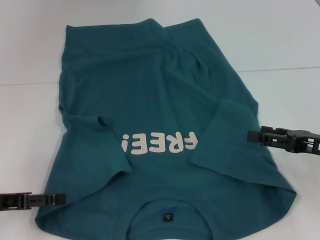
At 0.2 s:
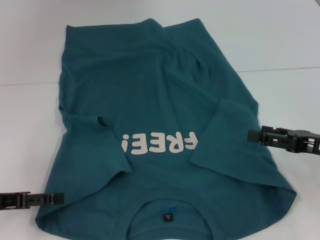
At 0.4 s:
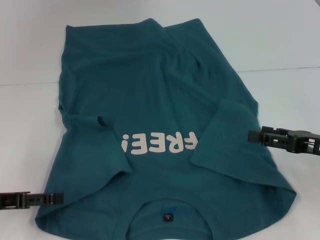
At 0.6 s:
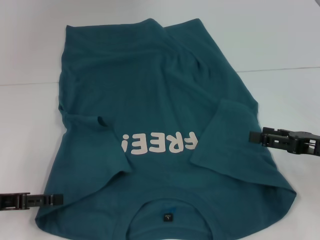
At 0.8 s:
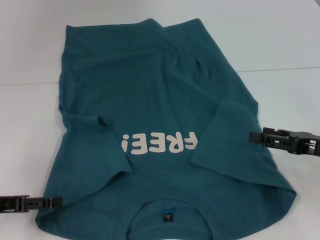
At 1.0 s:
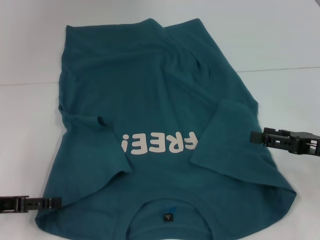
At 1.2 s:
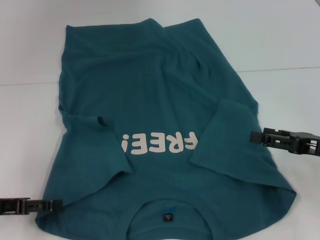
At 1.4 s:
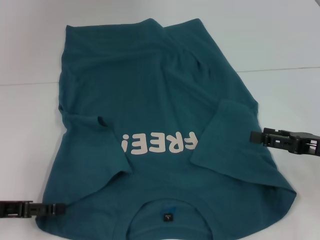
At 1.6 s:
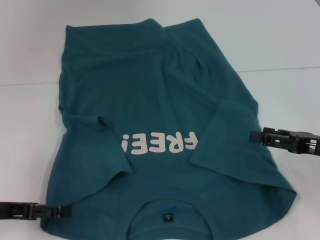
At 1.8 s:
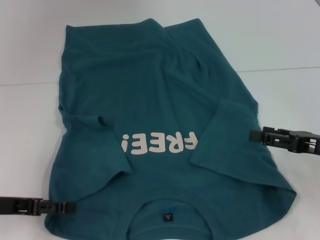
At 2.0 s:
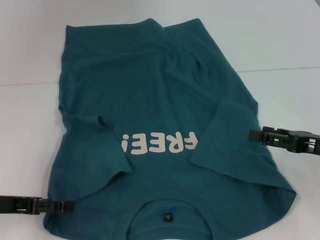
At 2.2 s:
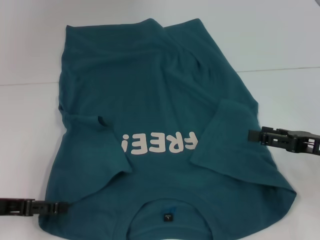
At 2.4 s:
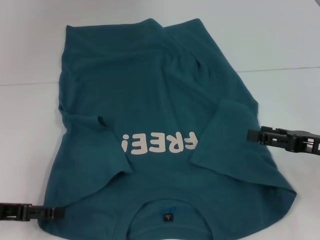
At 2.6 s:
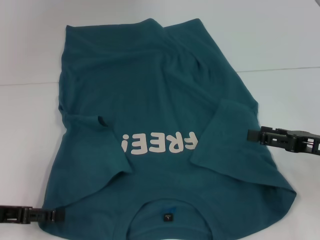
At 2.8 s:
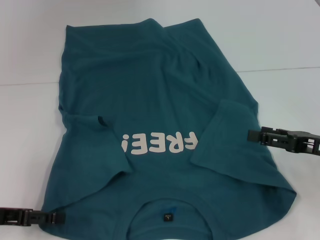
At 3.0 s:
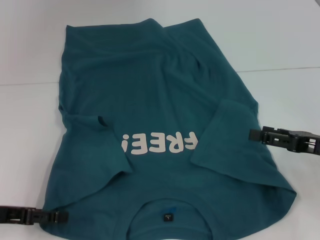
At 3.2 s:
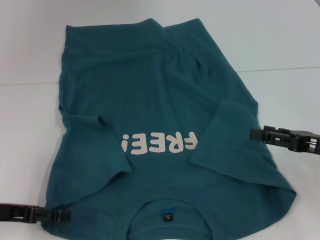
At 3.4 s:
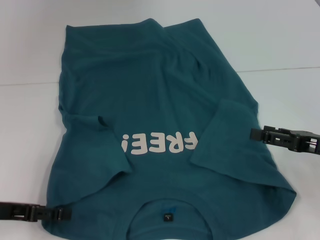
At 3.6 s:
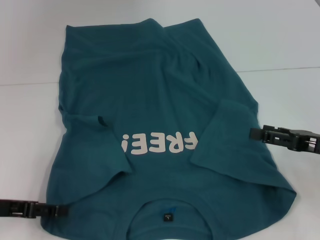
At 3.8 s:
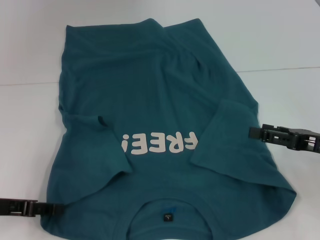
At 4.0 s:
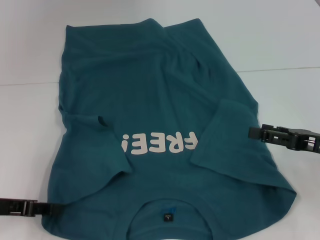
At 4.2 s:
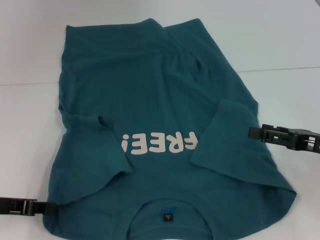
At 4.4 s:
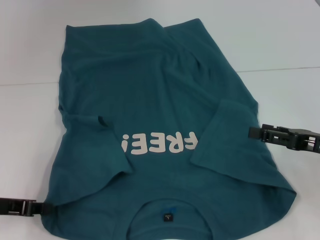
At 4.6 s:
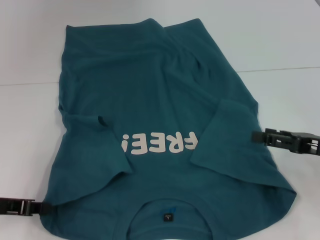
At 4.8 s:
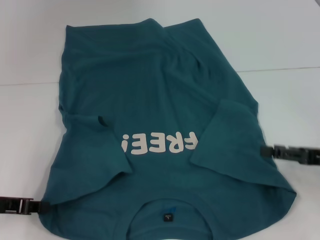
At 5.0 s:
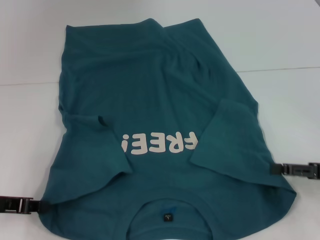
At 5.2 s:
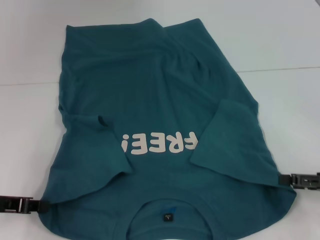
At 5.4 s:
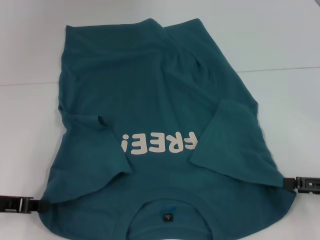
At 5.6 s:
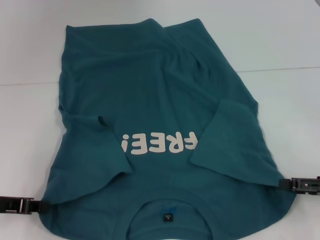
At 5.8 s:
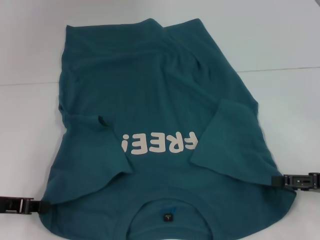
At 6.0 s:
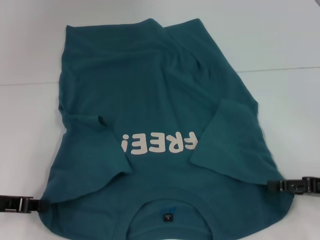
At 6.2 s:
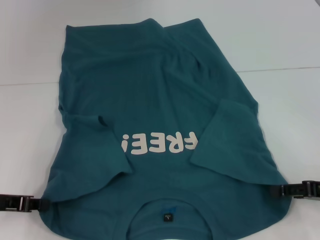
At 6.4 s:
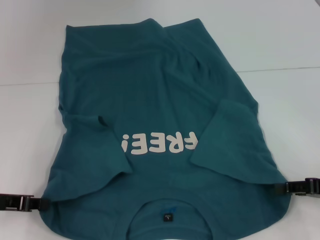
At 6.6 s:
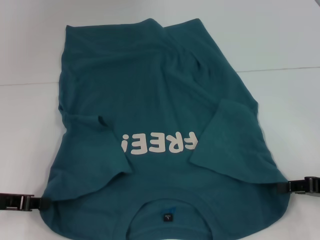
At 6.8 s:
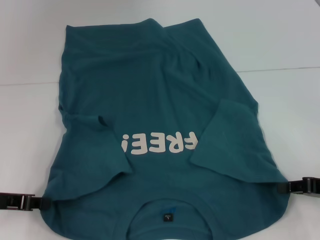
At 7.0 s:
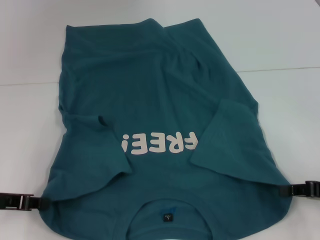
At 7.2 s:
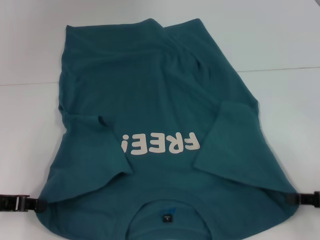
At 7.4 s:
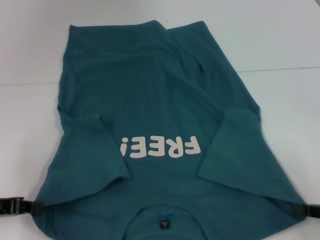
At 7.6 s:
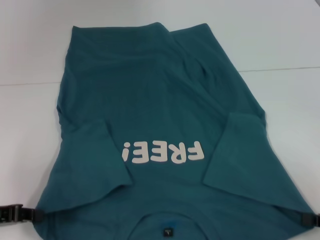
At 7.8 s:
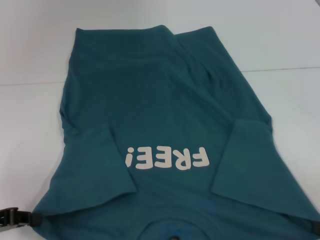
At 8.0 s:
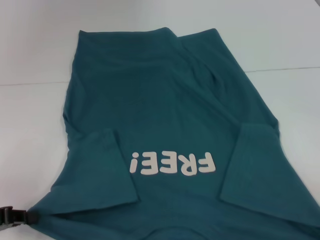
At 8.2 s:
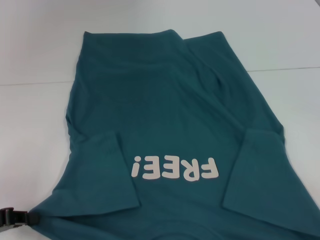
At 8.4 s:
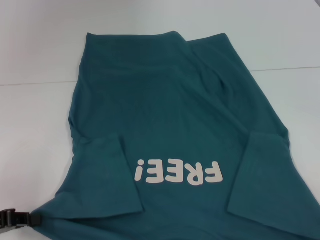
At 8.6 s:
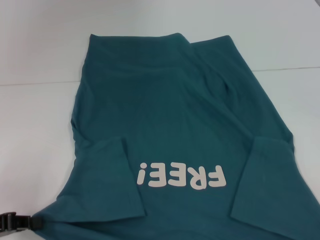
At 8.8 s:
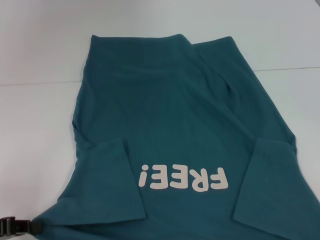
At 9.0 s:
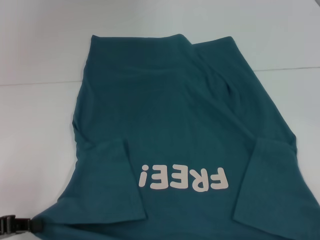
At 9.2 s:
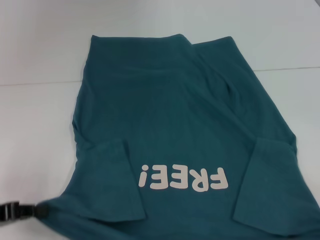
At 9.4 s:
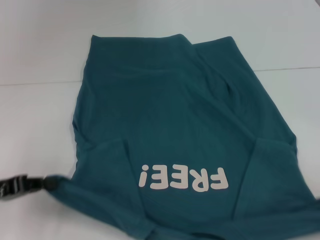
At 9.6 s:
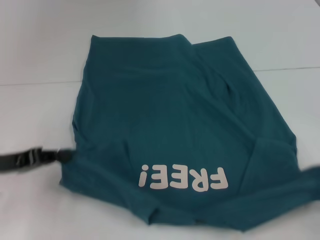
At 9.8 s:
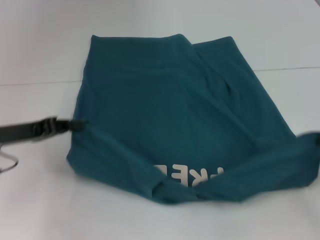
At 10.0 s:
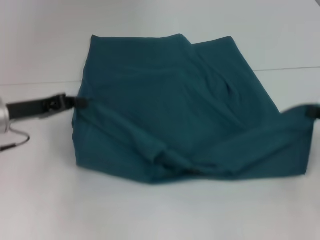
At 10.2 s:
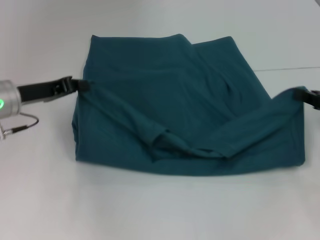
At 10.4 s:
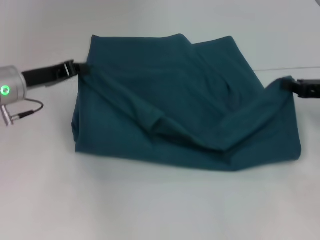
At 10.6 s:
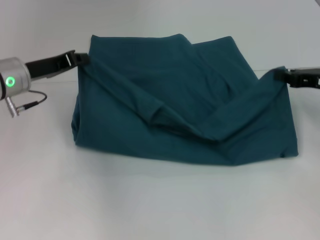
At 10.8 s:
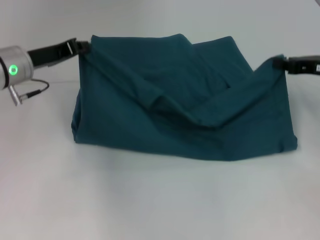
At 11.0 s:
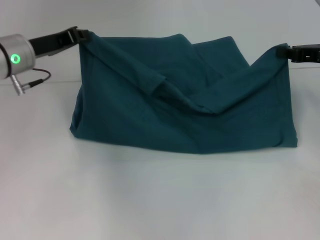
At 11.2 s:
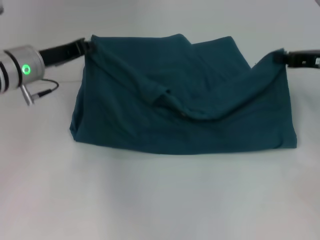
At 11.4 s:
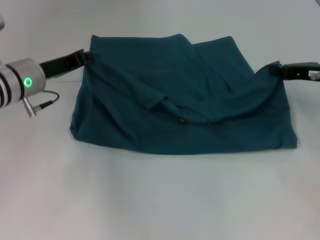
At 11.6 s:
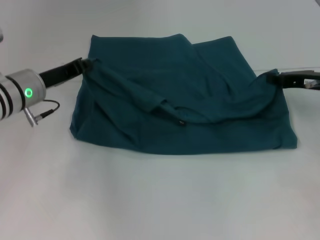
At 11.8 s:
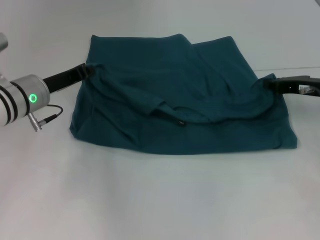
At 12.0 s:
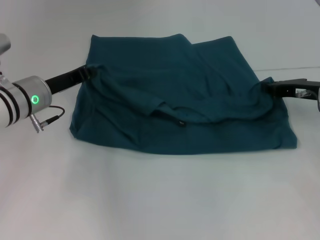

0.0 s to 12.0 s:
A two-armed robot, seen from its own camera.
Step, 0.0 to 4.6 s: Grab the bottom left corner with your left hand.
Step, 4.8 to 7.0 s: Grab the bottom right corner with your right hand.
0.0 to 1.6 s: The grippers move only a little.
1.6 to 3.0 s: The two grippers keep their place.
3.0 to 4.4 s: The left gripper closes its fingers.
6.0 to 7.6 s: The right gripper goes about 5 cm backward, and closes up.
7.6 to 9.0 s: The right gripper is displaced backward by some 10 cm.
9.0 to 10.4 s: The left gripper is displaced forward and to the right by about 20 cm; the right gripper moves forward, some 25 cm.
10.4 to 12.0 s: The right gripper moves roughly 5 cm.

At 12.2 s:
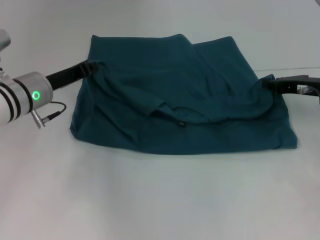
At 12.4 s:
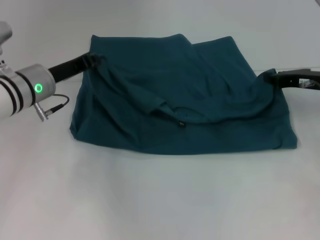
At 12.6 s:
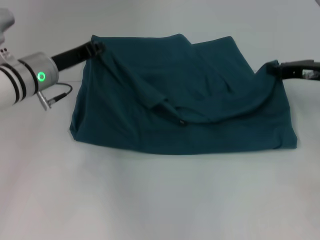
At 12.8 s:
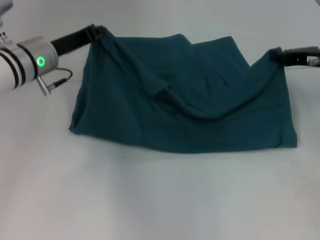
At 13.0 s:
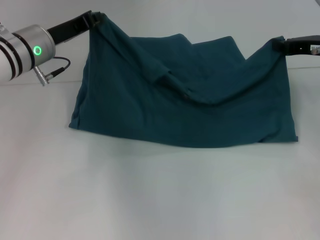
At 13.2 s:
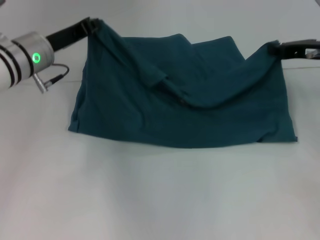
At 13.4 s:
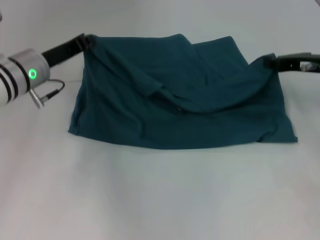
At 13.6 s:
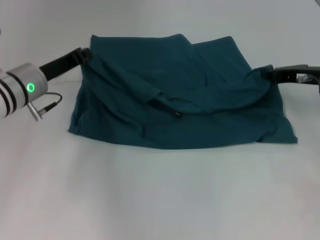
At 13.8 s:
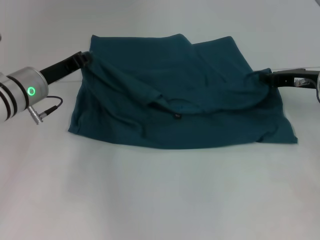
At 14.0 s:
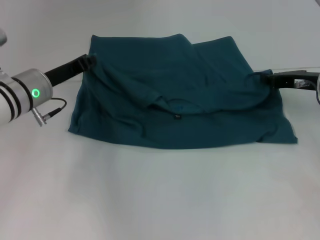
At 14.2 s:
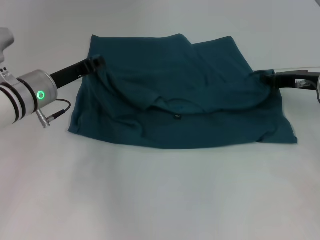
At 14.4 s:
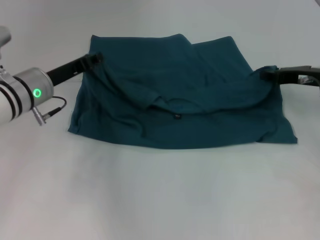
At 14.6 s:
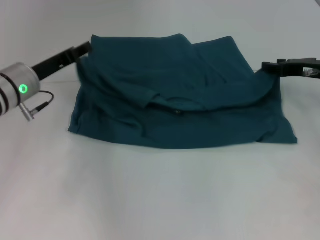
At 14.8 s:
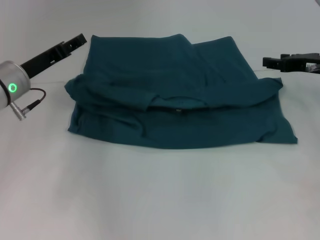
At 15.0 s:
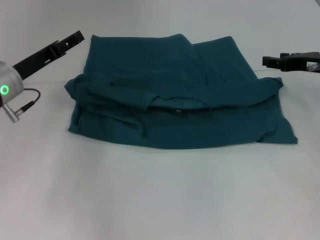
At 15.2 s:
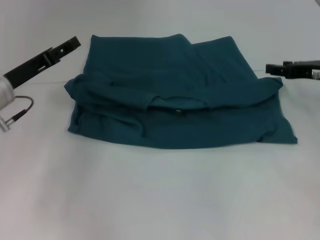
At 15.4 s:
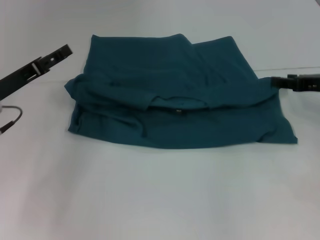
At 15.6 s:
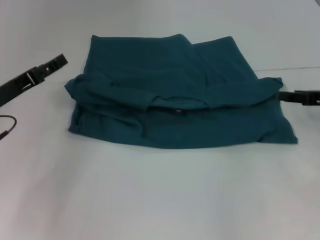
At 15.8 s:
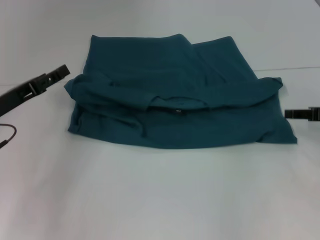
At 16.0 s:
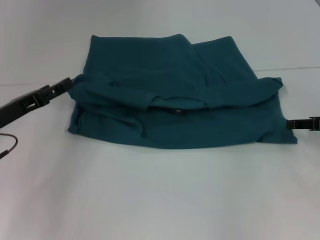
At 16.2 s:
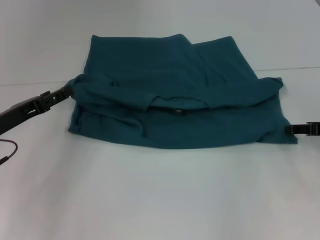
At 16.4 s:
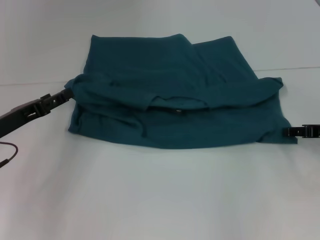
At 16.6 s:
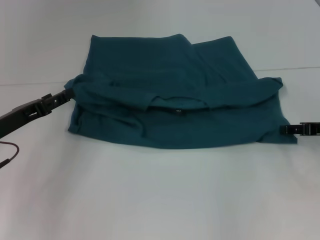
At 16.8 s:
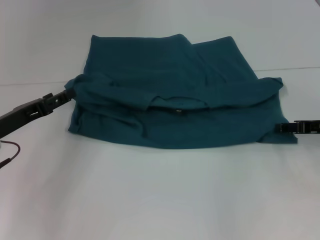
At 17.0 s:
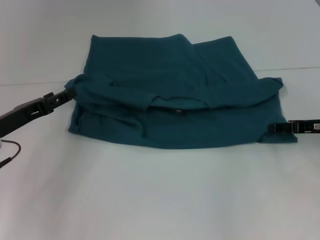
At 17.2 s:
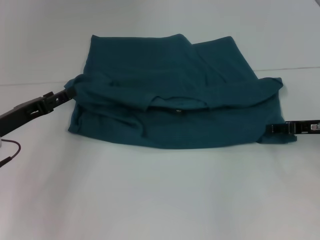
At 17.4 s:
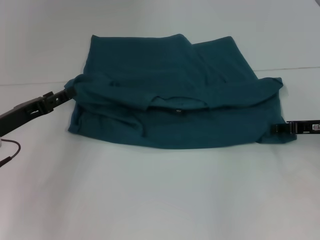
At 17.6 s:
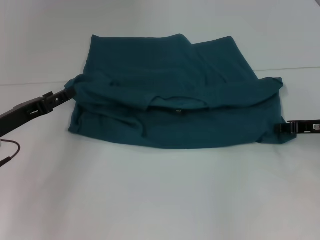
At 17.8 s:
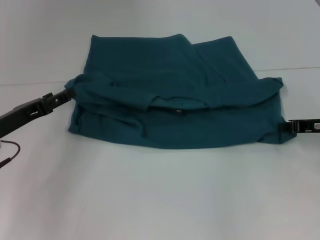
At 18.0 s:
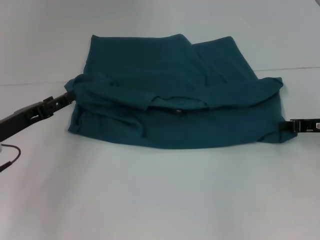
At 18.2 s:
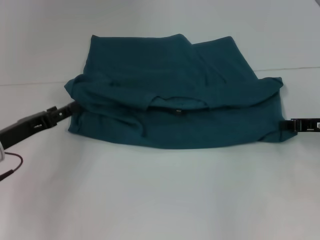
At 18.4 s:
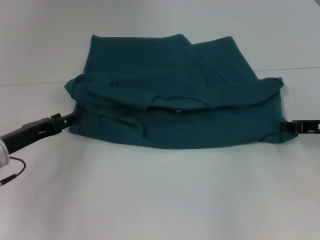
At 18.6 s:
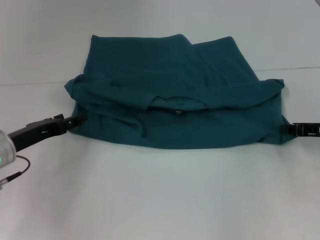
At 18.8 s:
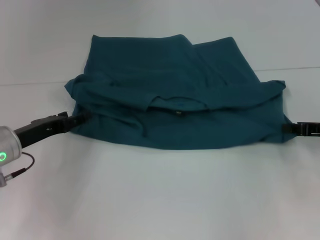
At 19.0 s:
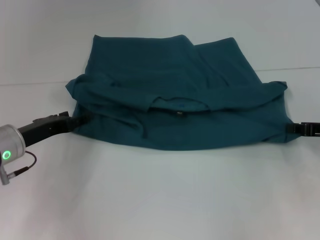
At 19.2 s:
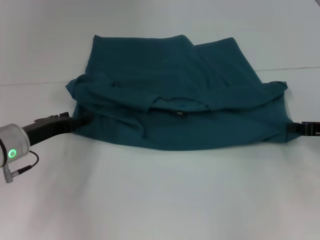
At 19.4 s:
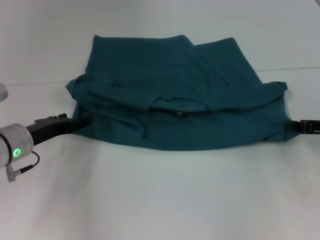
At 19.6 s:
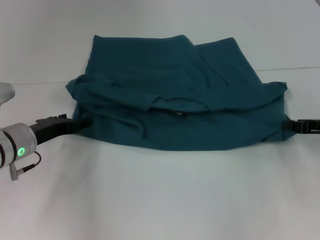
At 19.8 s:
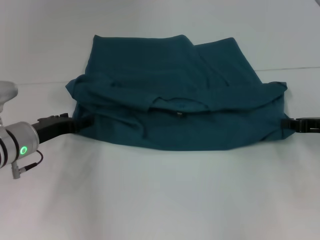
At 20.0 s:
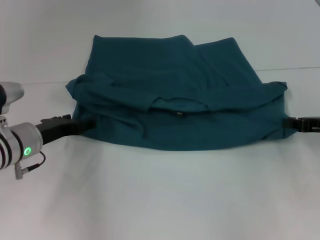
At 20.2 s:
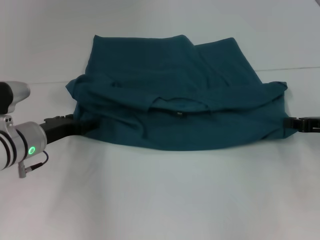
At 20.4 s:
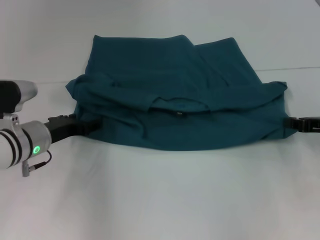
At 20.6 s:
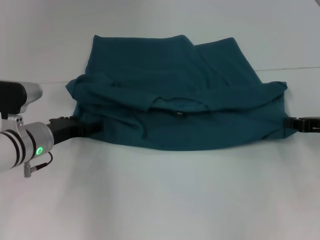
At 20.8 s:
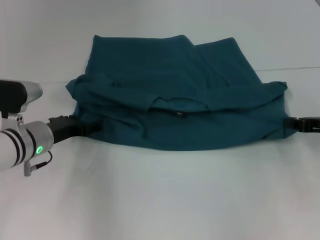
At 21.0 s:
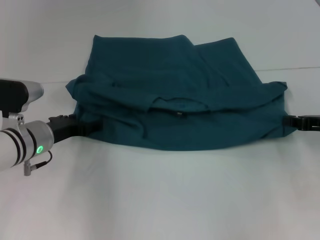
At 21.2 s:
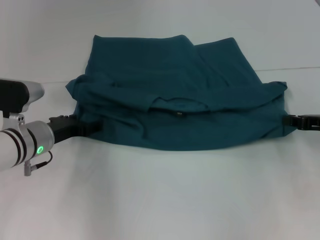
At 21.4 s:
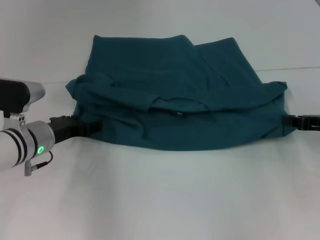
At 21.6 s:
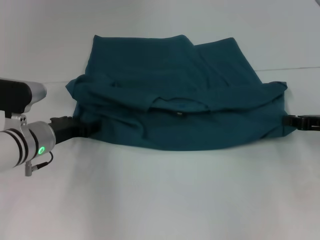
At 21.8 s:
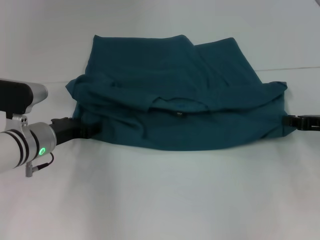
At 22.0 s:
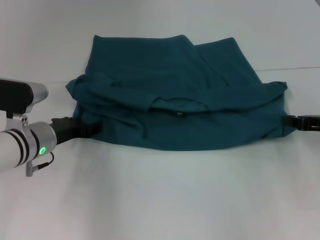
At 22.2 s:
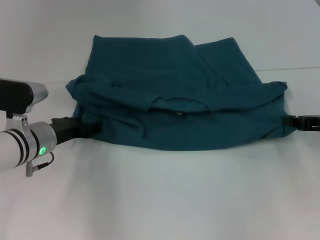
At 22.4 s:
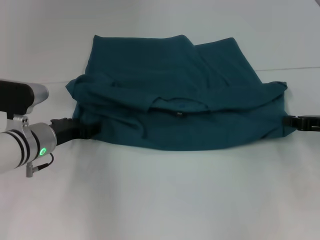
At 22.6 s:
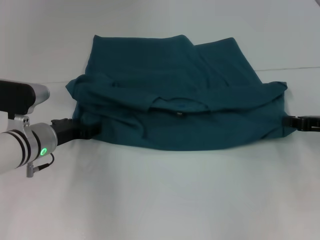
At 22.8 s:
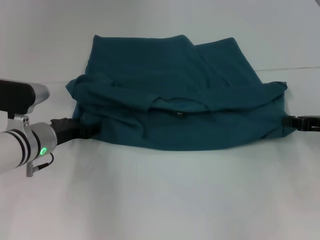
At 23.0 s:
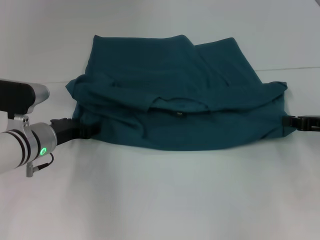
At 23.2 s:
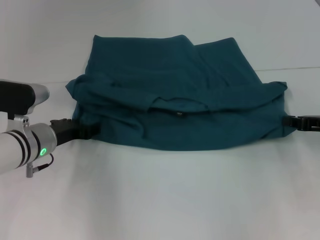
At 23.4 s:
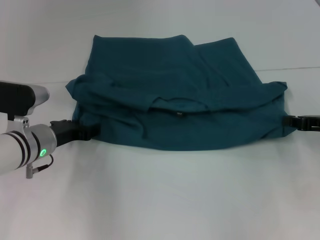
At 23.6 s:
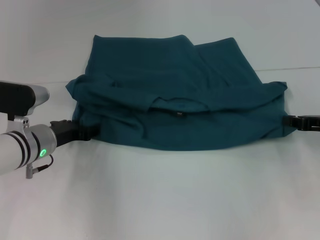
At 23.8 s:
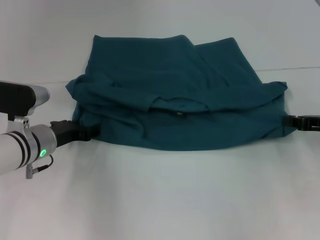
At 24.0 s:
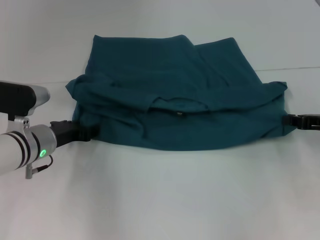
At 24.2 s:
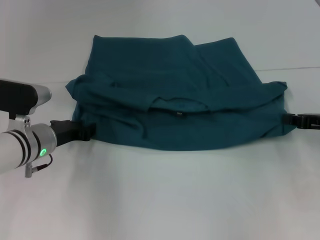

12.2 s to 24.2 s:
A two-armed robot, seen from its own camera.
Step, 12.2 to 14.8 s: Fold the clothes to the left.
Step, 12.2 to 14.8 s: Fold the clothes to the right.
13.8 to 15.2 s: The left gripper shifts by approximately 5 cm, and opens up, while the right gripper opens its fingers.
15.2 to 16.6 s: The left gripper travels backward by approximately 5 cm, while the right gripper travels downward and backward by about 10 cm.
16.6 to 18.2 s: The right gripper closes.
18.2 to 19.8 s: The left gripper changes place by roughly 5 cm.
19.8 to 21.2 s: There are only small adjustments of the grippers.
21.2 to 24.2 s: Neither gripper changes place.
